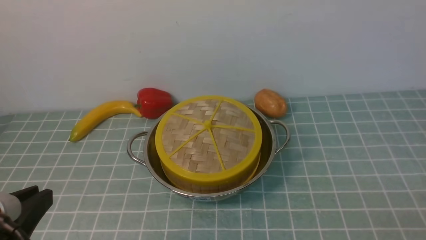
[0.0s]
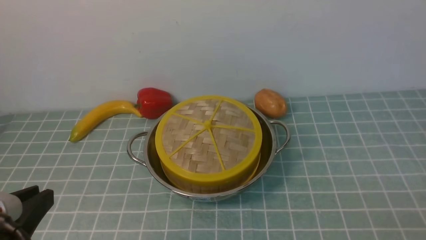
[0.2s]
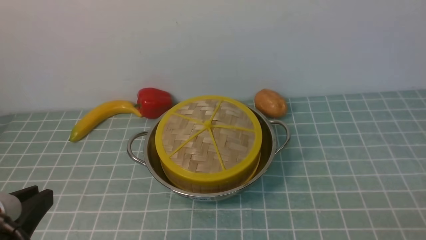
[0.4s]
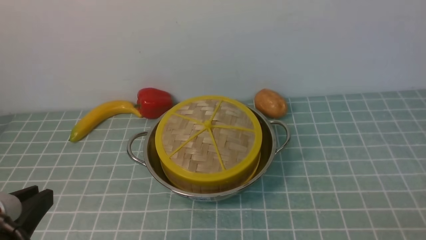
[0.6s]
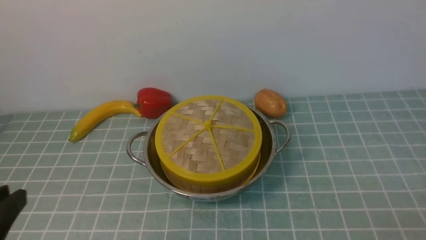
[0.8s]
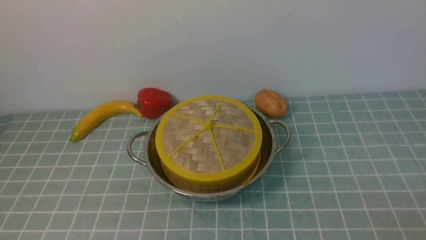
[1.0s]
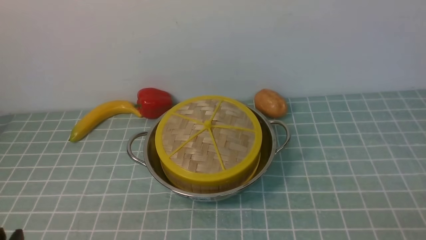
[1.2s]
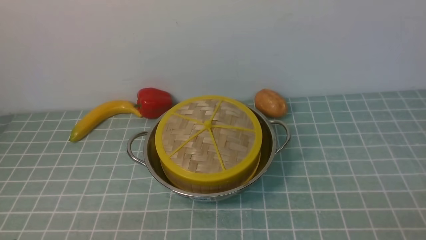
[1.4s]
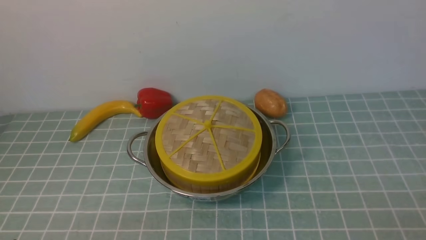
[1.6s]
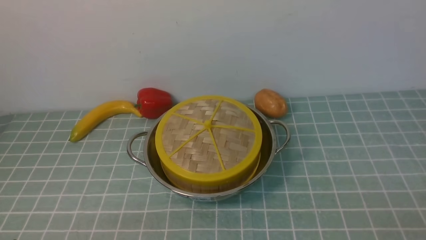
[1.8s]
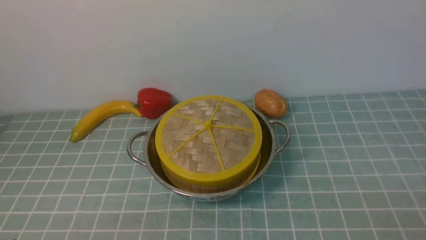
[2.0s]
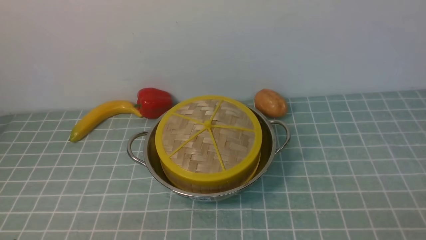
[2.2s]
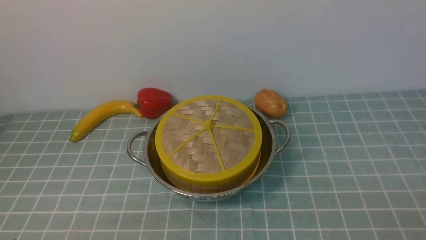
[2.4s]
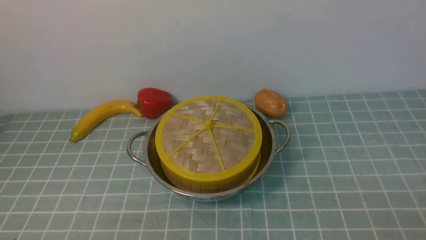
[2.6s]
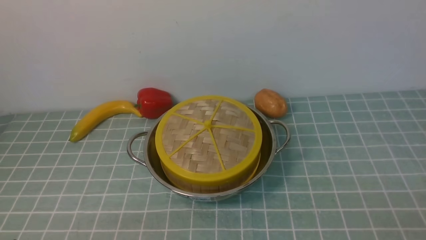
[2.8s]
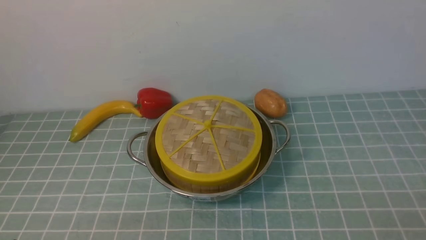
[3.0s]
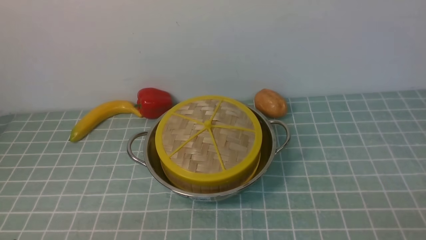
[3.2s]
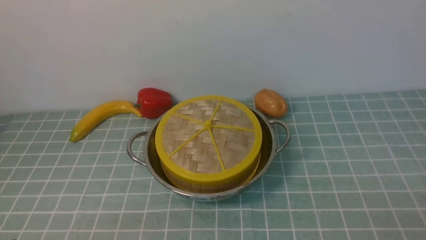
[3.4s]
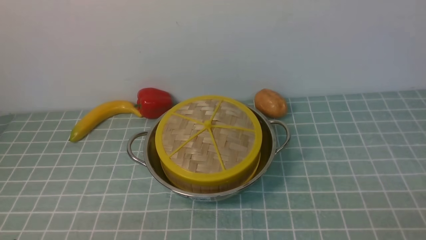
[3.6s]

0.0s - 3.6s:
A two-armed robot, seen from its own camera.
Task of the whole recording: place the steamer in the pot on the blue tablecloth, and put the lid on the steamer.
0.0s - 1.8s: The left gripper goes approximately 10 cm downward.
1.8s - 3.6s: The two grippers keep their place.

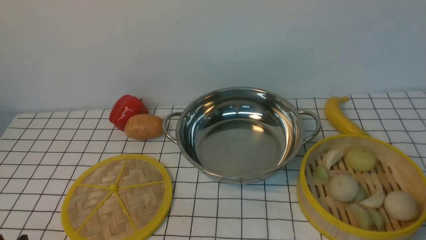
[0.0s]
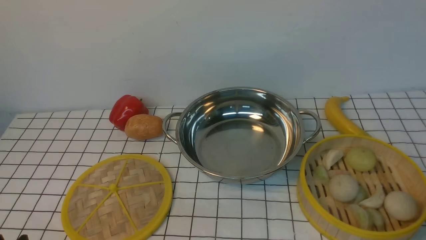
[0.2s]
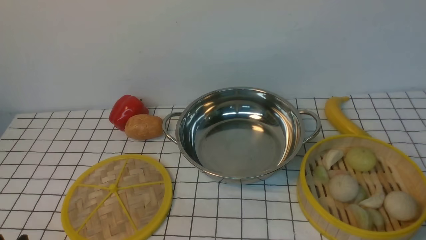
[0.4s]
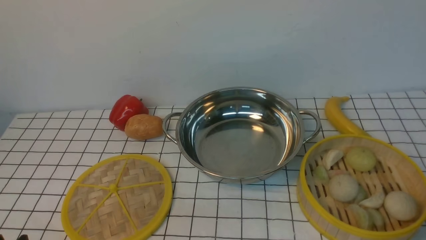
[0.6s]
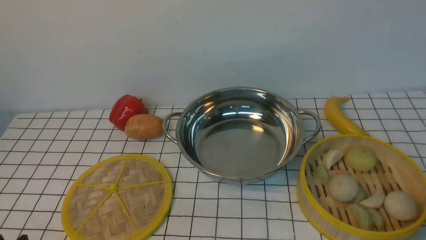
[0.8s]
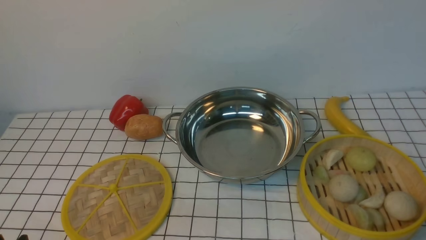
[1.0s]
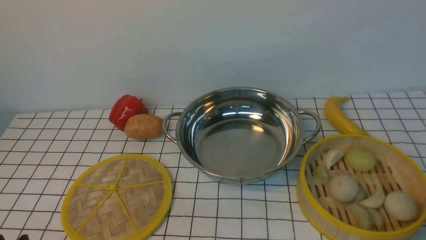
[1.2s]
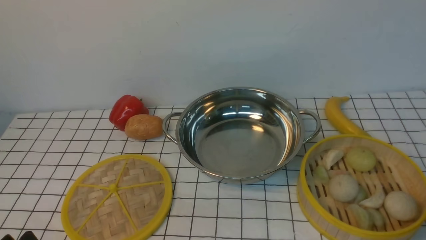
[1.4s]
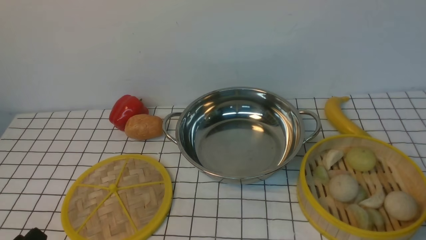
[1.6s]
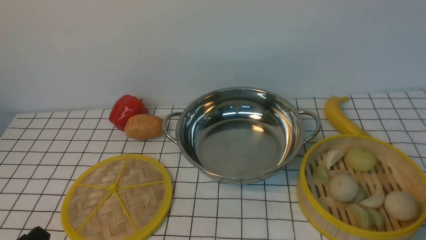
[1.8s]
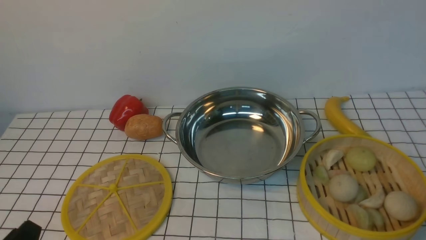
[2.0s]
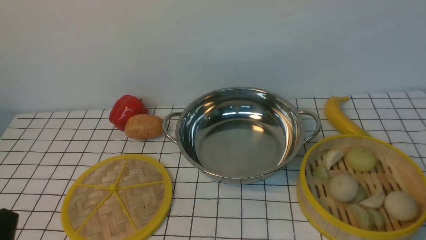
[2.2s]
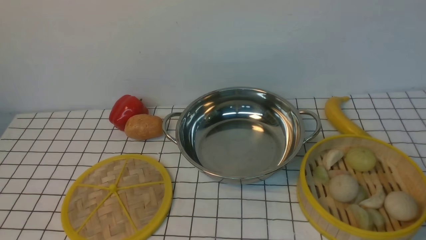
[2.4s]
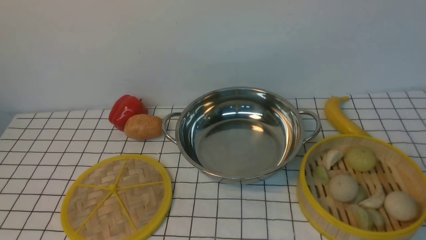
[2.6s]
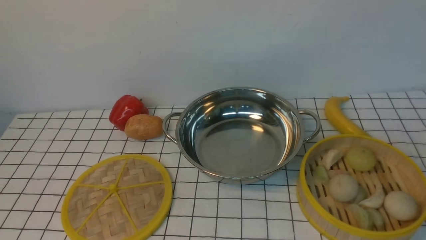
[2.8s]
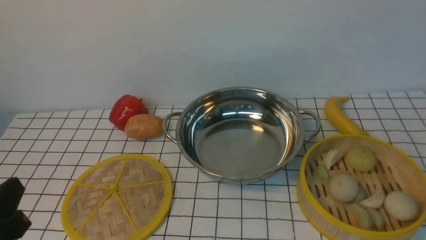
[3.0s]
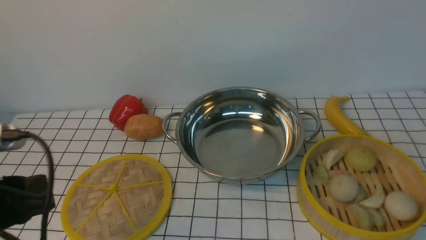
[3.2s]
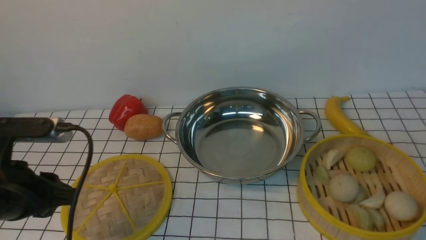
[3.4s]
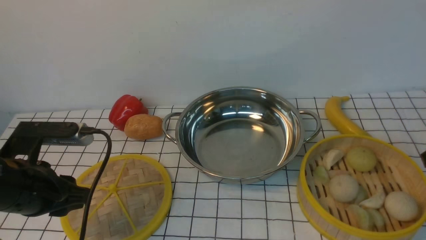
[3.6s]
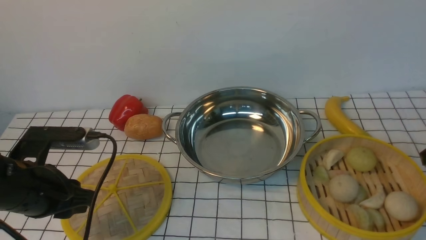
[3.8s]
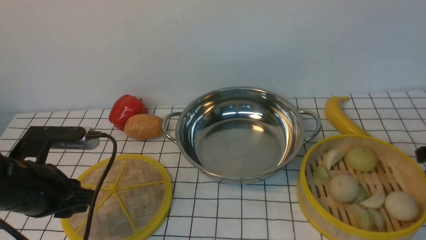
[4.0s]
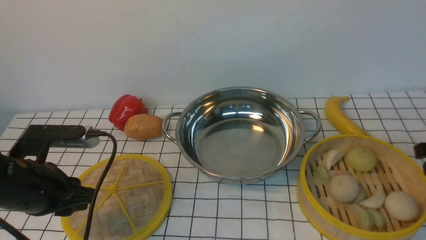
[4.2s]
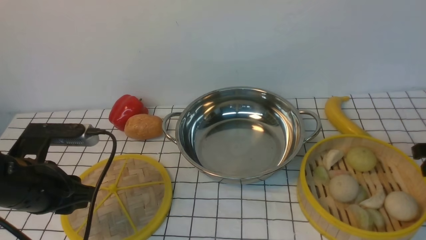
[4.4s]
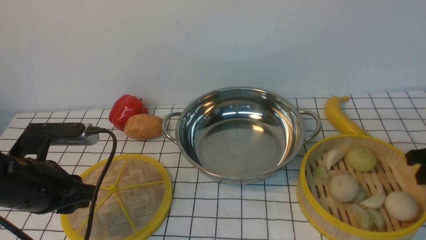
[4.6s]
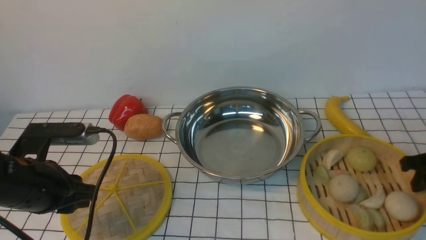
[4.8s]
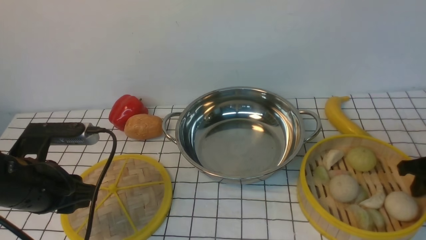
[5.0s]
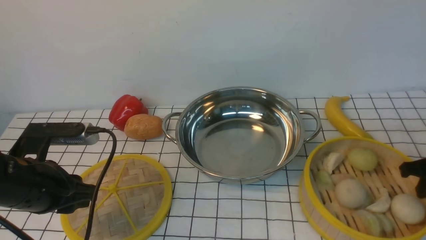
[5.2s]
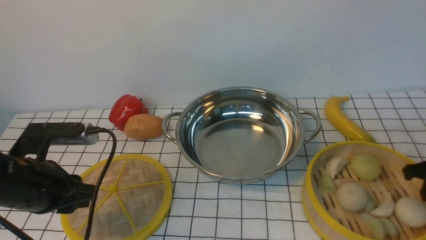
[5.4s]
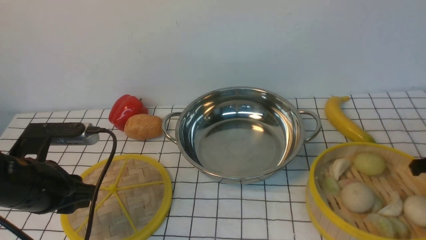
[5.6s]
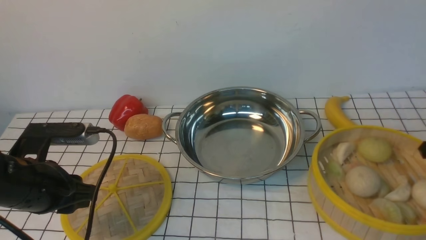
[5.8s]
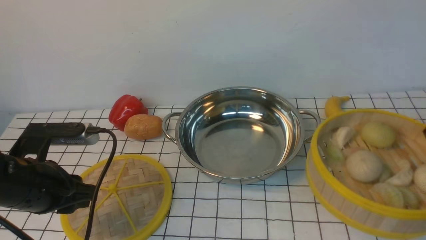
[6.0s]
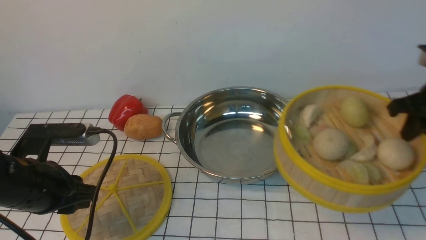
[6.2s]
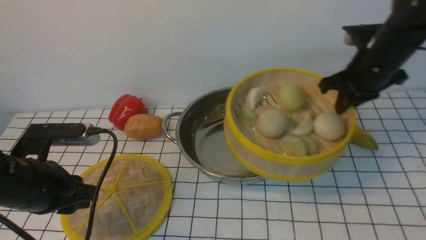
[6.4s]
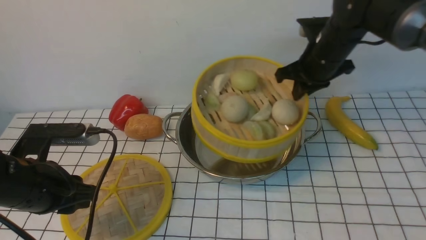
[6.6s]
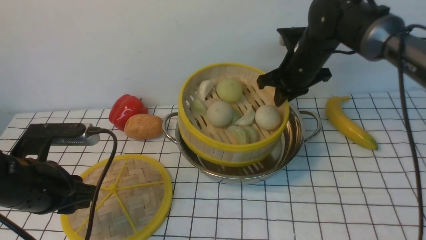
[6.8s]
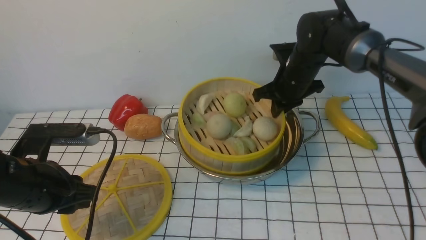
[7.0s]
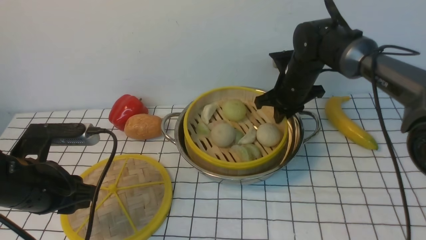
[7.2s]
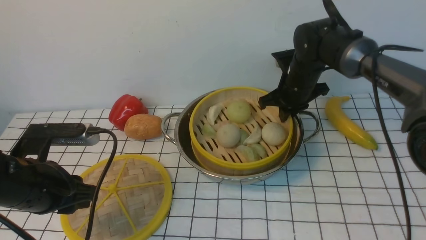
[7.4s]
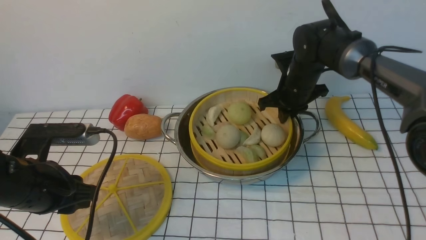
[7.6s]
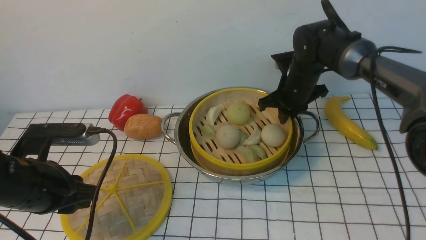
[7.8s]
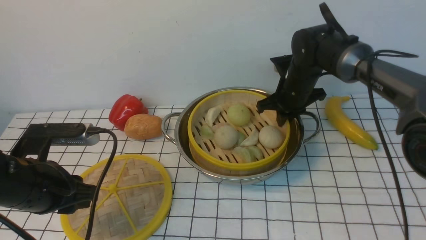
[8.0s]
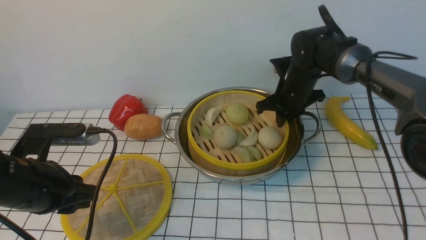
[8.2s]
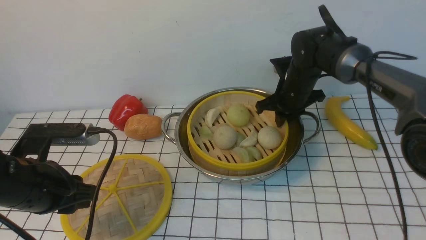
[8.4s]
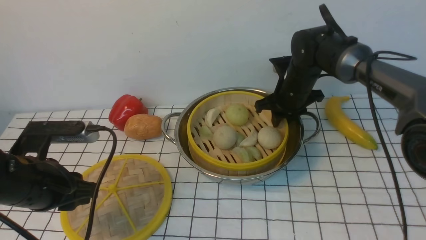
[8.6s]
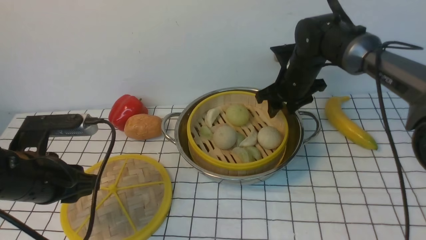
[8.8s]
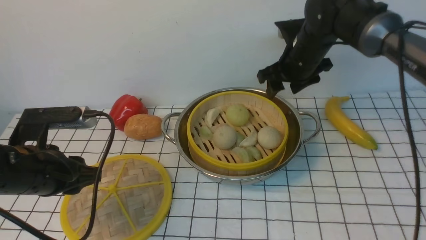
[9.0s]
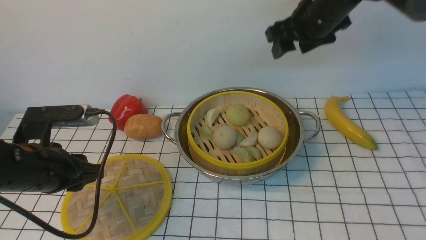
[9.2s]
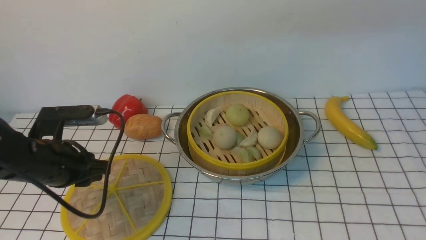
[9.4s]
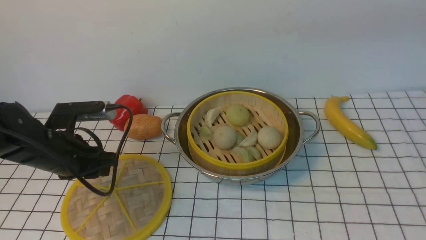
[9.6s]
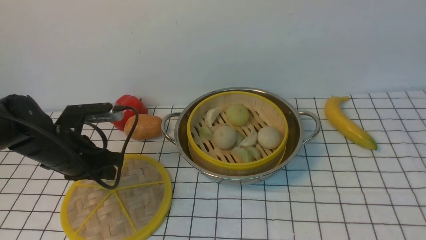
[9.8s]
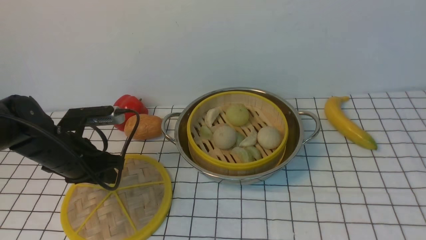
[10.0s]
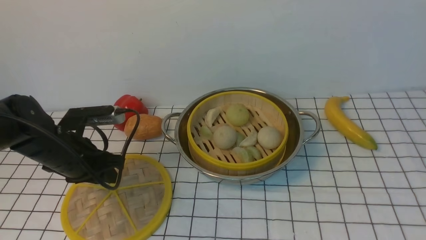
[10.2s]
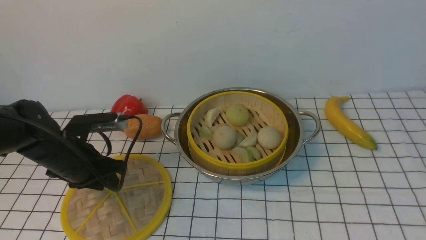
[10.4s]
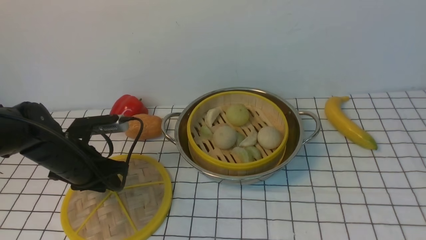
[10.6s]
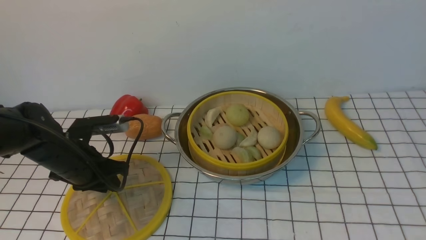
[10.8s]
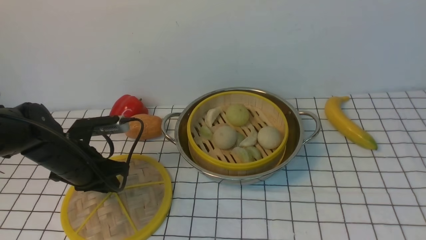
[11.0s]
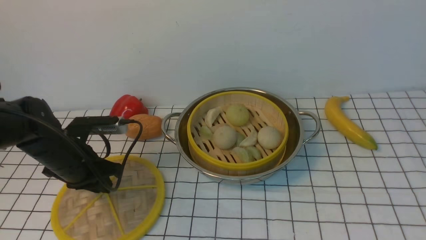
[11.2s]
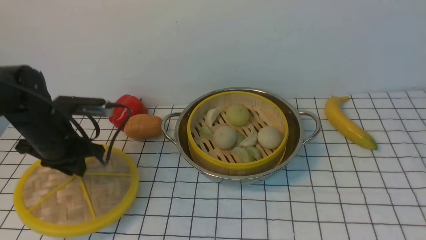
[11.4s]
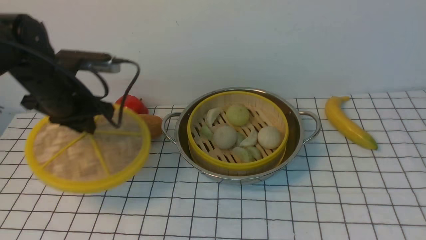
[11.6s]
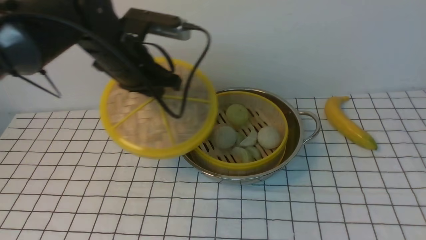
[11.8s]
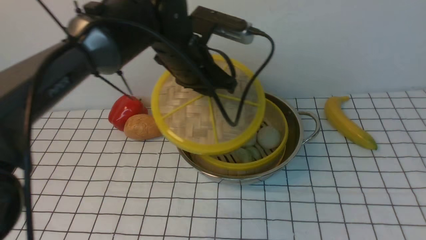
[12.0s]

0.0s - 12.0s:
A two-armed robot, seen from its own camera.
Task of the whole recording: place the steamer in the pot on the white tablecloth, and put the lid on the steamer.
Step, 0.0s - 5.6s: use the right arm to lift the steamer closest to it.
Step, 5.8s - 8.8s: use the right arm to put the steamer into the iron steamer pot in the middle.
Step, 9.0s - 11.2s: use the left arm to lift the lid of the steamer.
1.6s - 3.0s: The left gripper heads upward, covering about 10 cm.
3.0s - 4.4s: The left gripper heads forward, covering about 15 cm.
4.4s - 6.0s: The right gripper closes up.
6.0s - 7.6s: The right gripper goes roughly 25 cm to the left and forward.
7.6s - 9.0s: The right gripper moves upward, about 5 cm, and opens up.
9.0s - 10.4s: The left gripper travels forward and downward by about 10 cm. The right gripper goes about 50 cm backward and upward.
10.4s - 12.0s: The left gripper is displaced to the right, upward and forward by roughly 20 cm, and closes up.

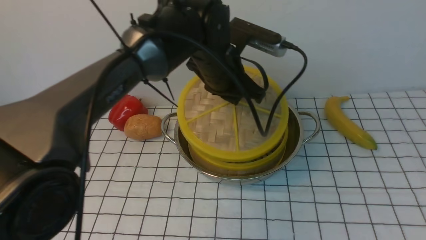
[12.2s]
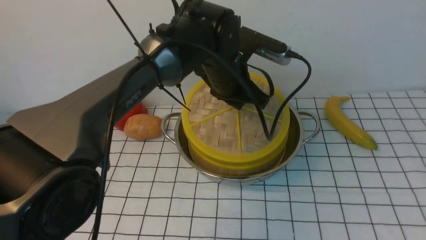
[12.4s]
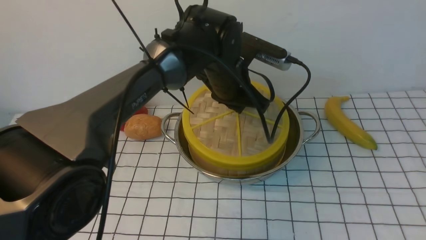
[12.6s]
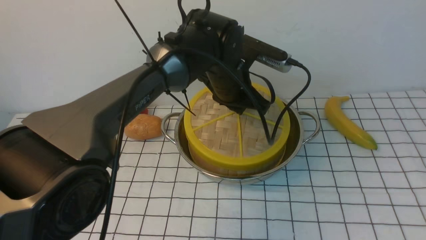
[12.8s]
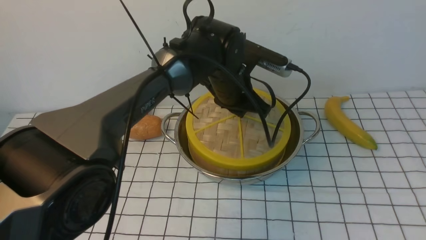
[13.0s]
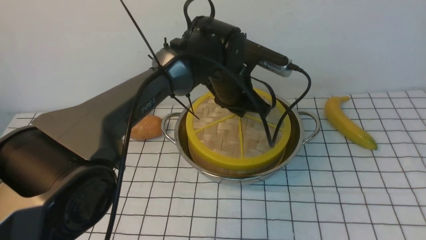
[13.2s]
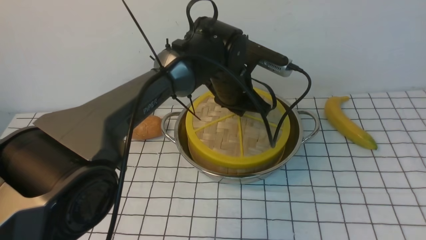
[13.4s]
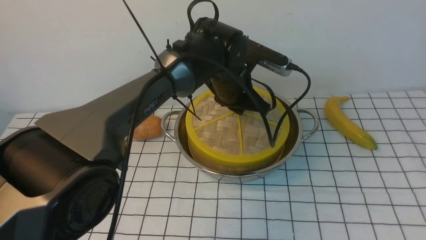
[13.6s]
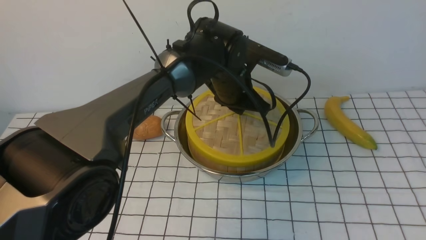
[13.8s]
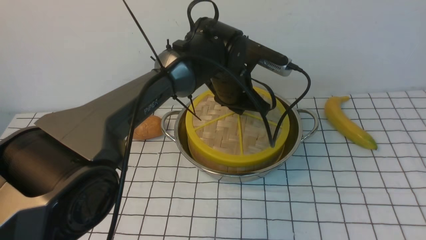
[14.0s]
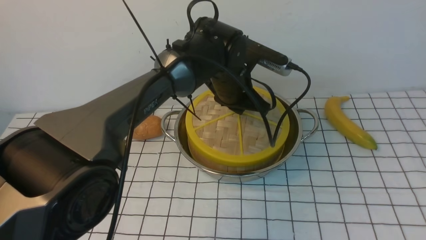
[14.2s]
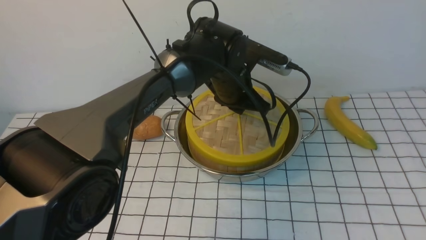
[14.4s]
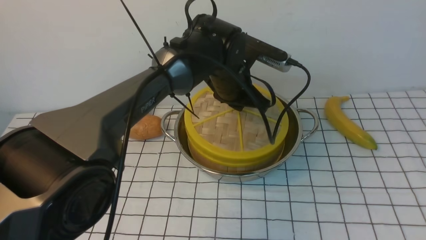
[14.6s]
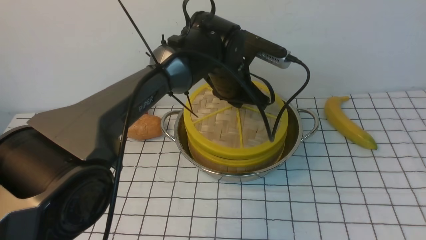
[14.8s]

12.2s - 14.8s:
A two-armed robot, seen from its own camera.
Task of the whole recording: place the steamer in the pot on the white tablecloth, and put the lid on the steamer.
12.2s - 13.4s: The left gripper shifts roughly 5 cm downward.
13.4s - 14.8s: The two grippers keep their place.
